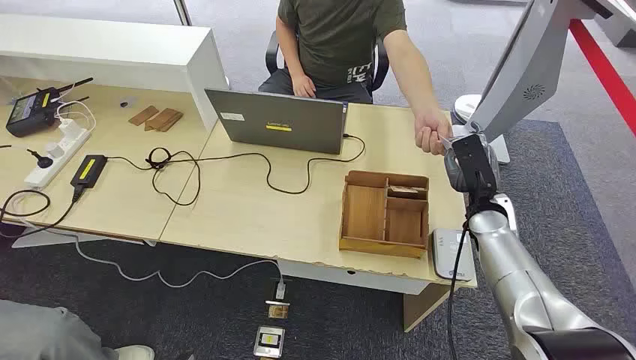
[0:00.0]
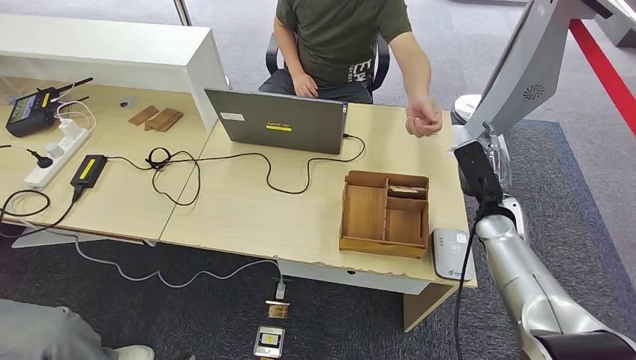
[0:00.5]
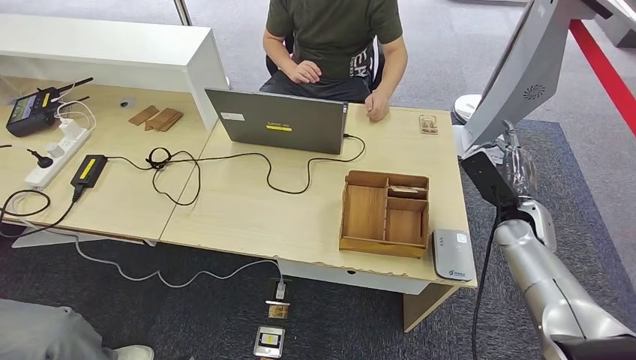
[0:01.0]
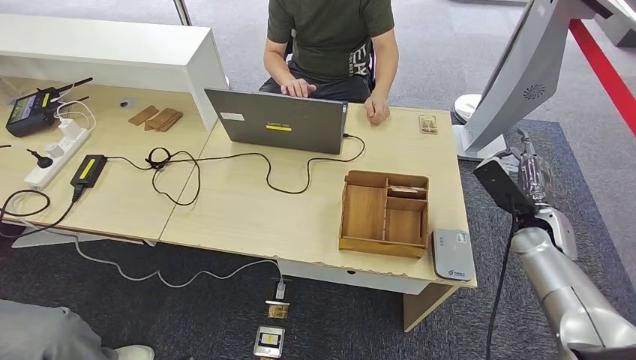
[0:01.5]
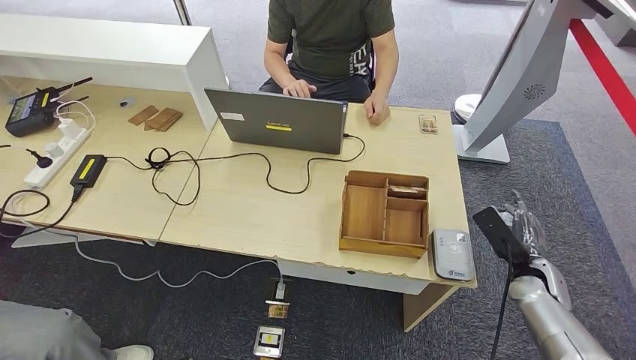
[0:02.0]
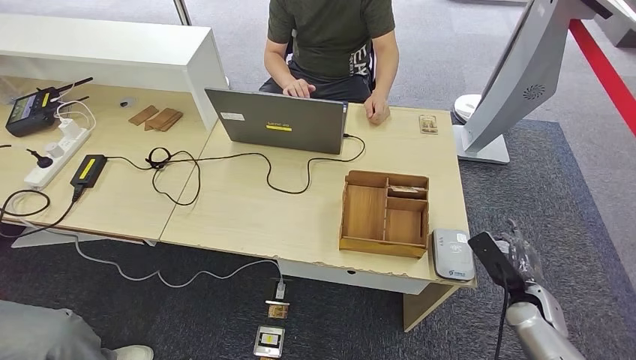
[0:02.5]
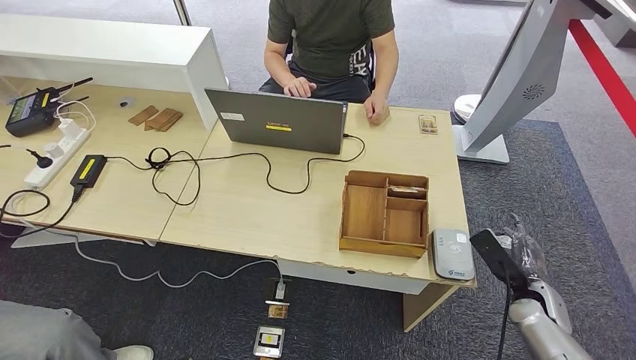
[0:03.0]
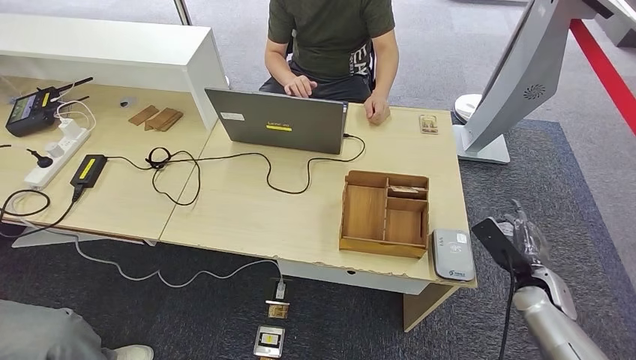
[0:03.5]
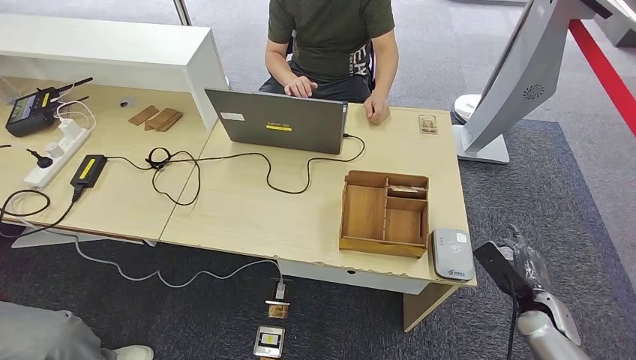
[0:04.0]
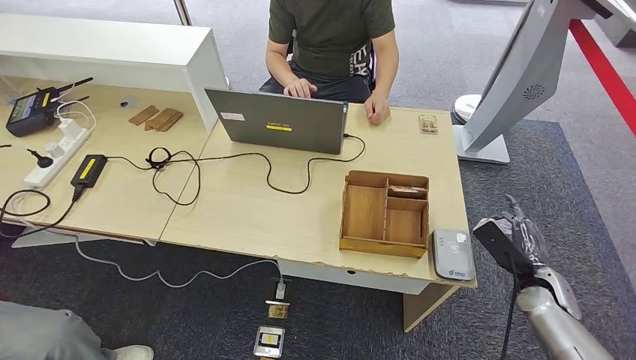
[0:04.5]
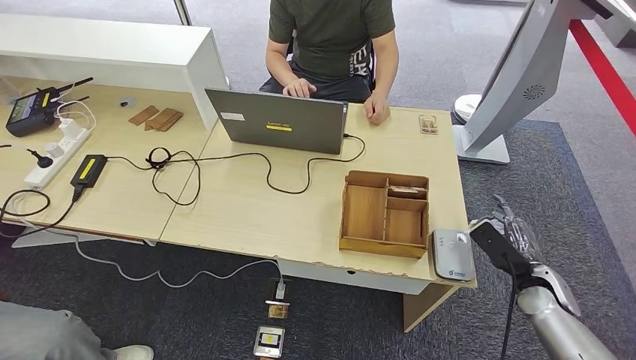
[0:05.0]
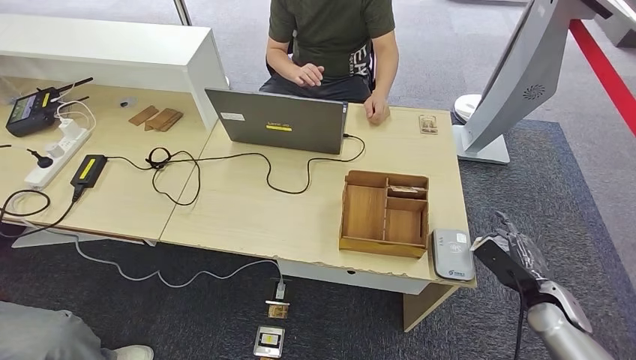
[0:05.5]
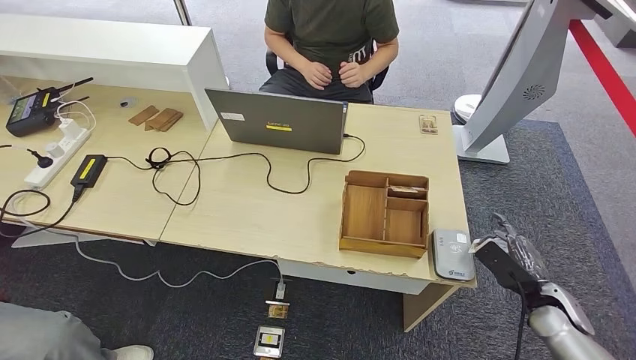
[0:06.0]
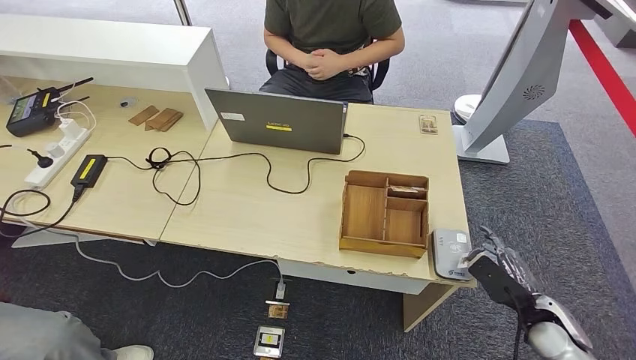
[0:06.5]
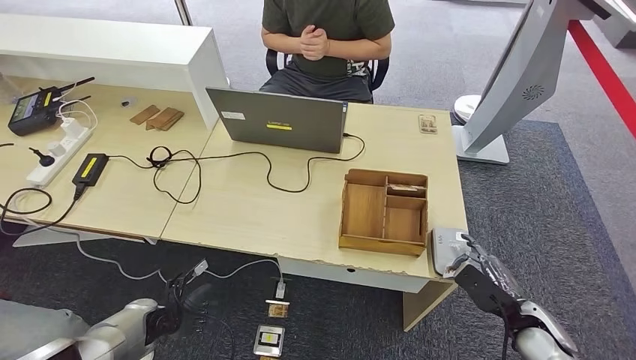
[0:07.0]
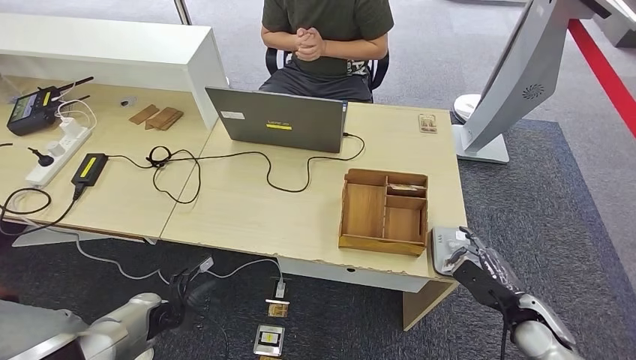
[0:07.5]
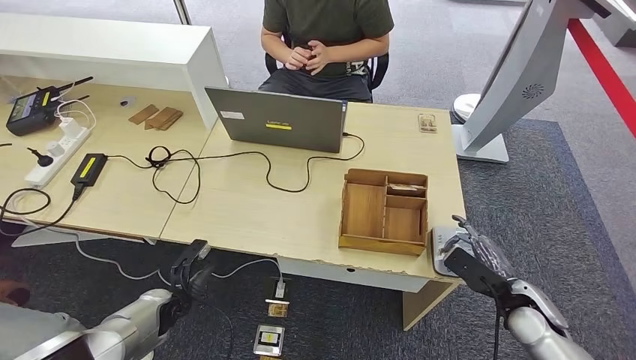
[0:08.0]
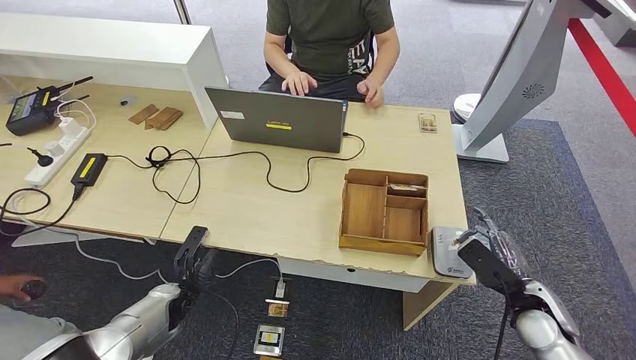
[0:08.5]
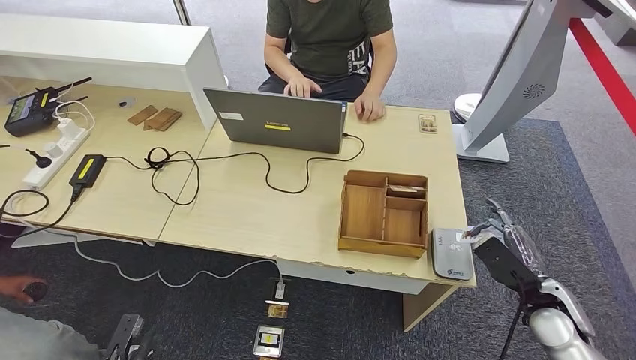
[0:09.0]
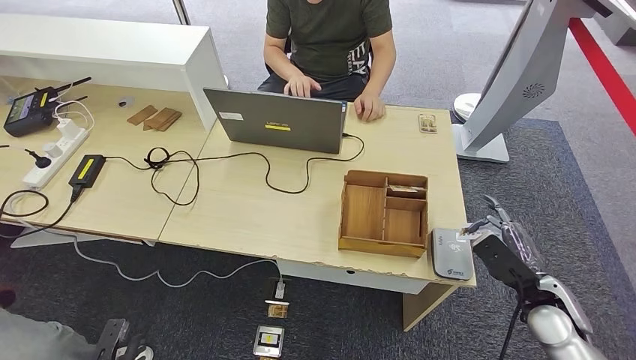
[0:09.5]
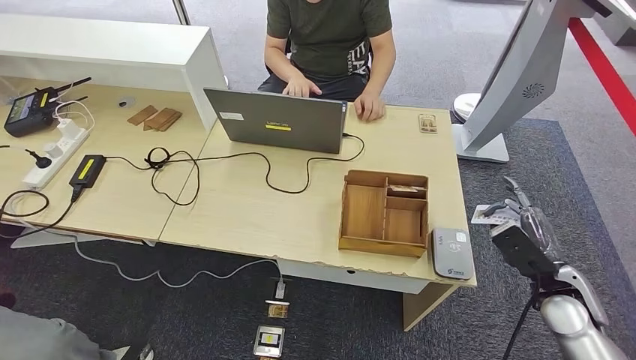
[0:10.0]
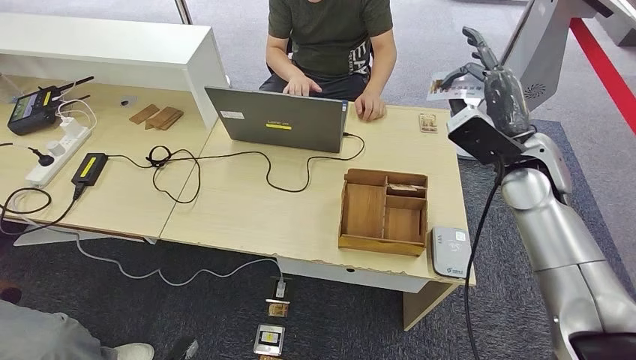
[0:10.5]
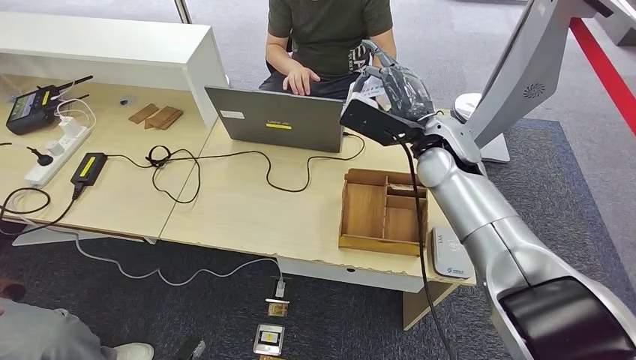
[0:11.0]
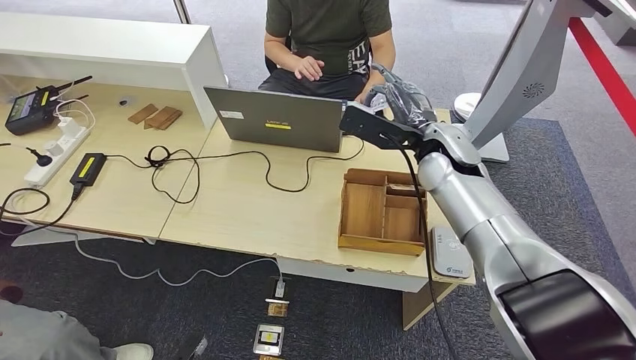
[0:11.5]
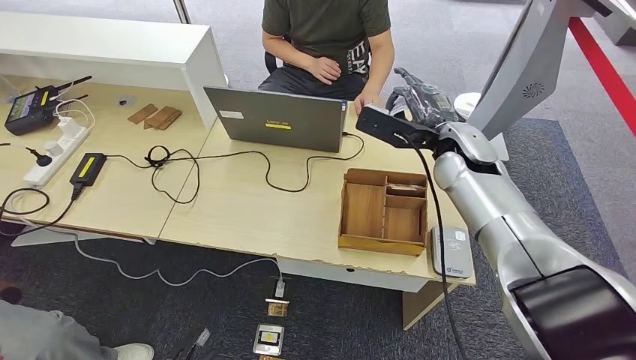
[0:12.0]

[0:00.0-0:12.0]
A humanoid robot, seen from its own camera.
Step, 0:00.0 to 0:01.0: Take the ID card from the person's hand.
Step, 0:01.5 to 0:10.0: Place the ID card on the card reader.
0:02.0 to 0:04.0: The right hand travels backward by some 5 cm.
0:06.0 to 0:08.0: The left hand moves forward and upward, roughly 20 cm; the right hand shifts approximately 5 cm to the left.
0:08.0 to 0:10.0: The left hand moves backward, some 20 cm. The right hand moves upward, approximately 5 cm.
0:10.0 to 0:12.0: The right hand goes approximately 30 cm to the left, forward and upward, while the left hand moves to the right, roughly 10 cm.

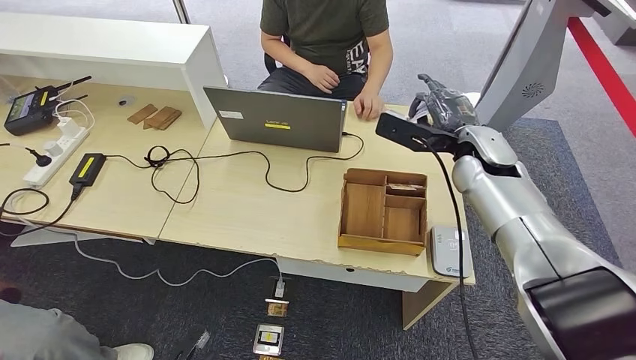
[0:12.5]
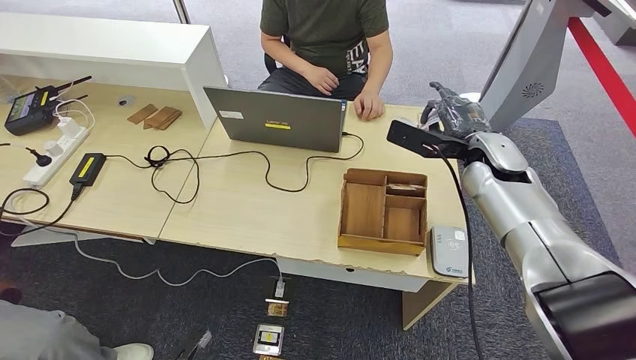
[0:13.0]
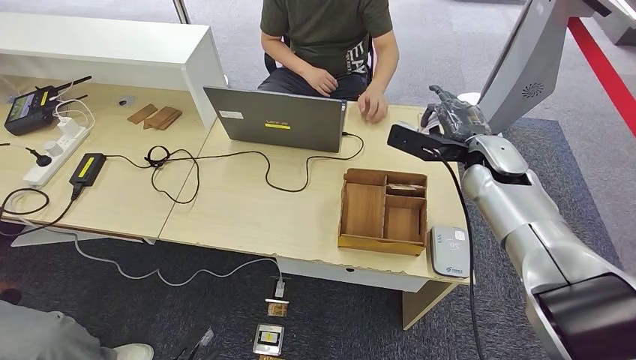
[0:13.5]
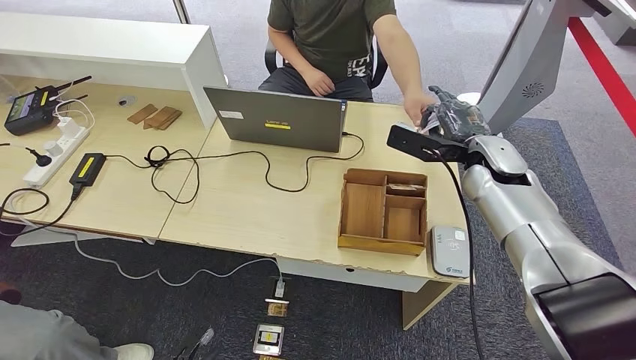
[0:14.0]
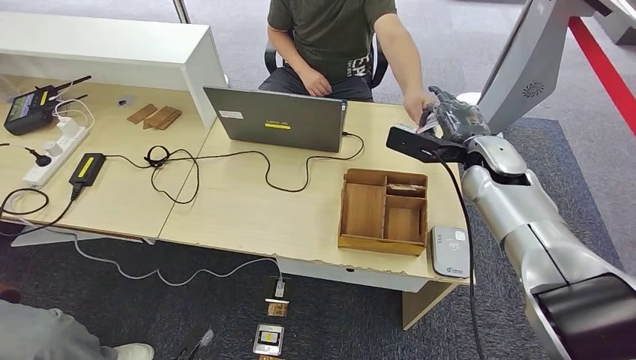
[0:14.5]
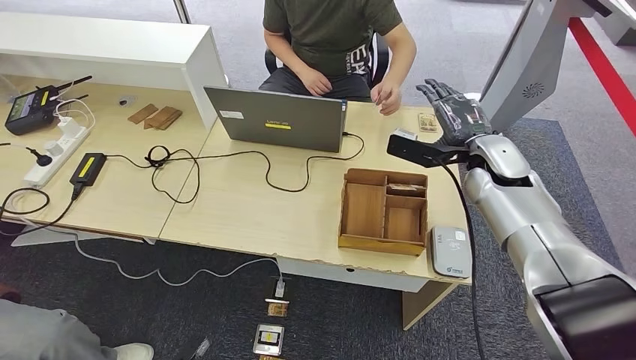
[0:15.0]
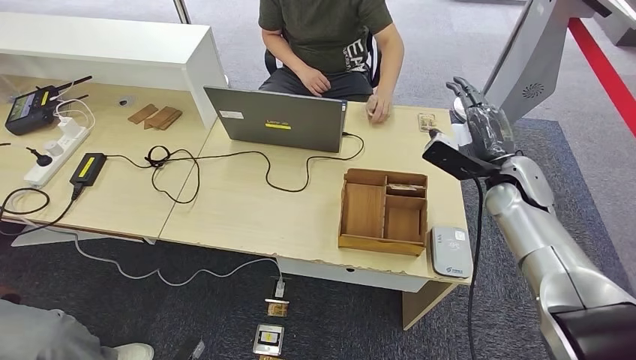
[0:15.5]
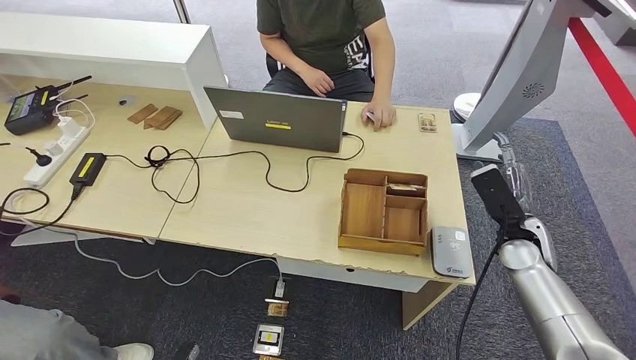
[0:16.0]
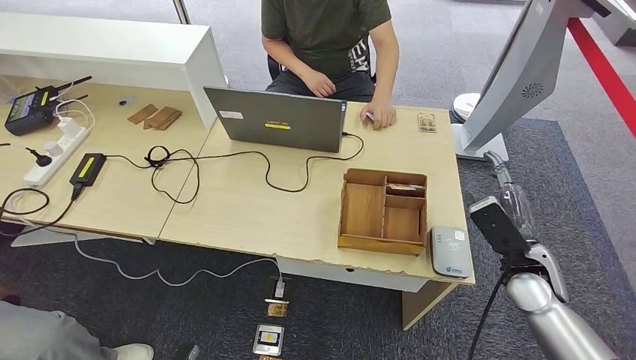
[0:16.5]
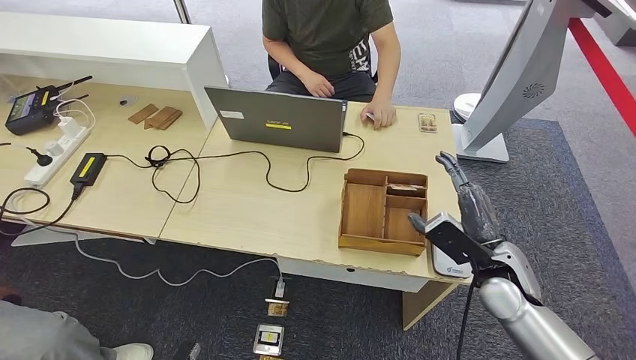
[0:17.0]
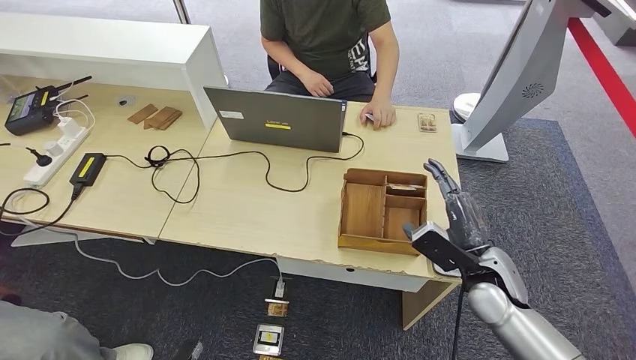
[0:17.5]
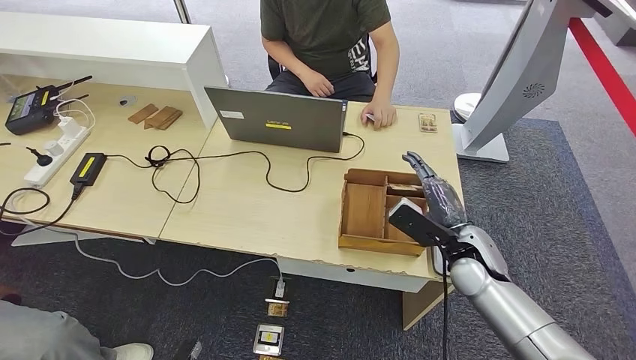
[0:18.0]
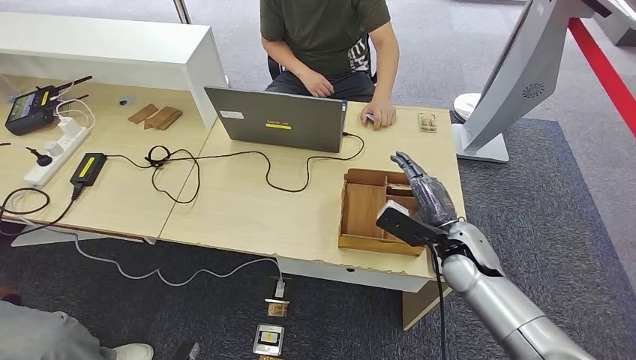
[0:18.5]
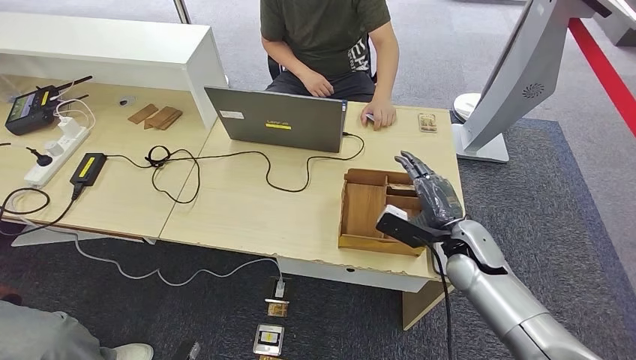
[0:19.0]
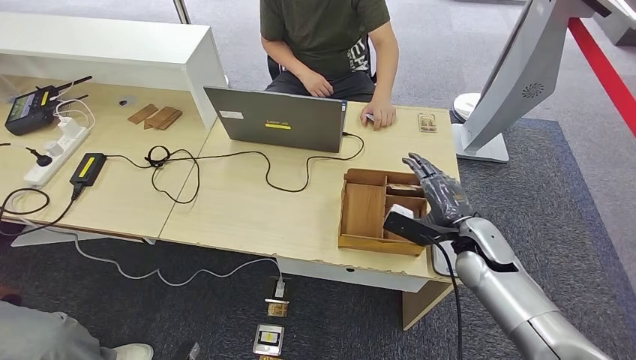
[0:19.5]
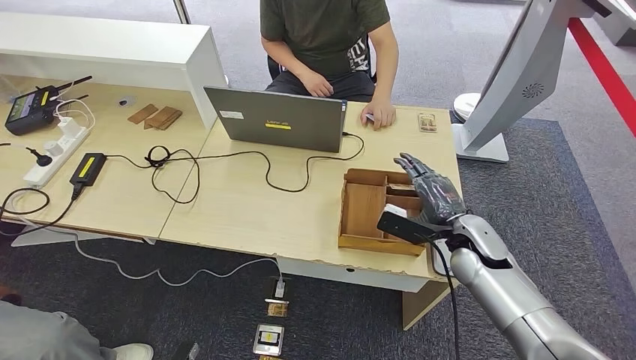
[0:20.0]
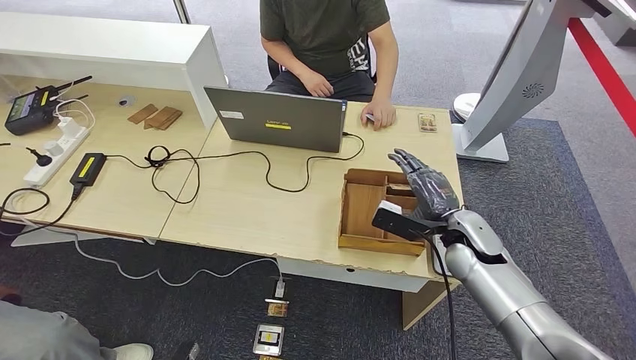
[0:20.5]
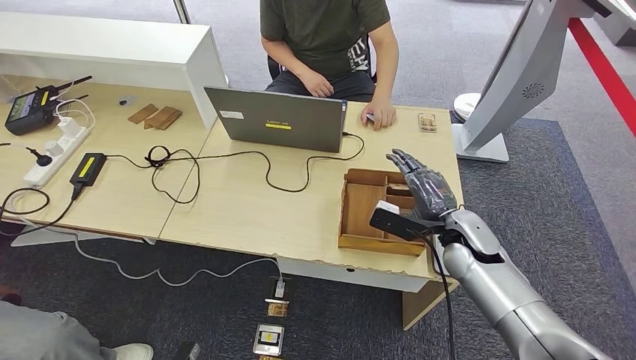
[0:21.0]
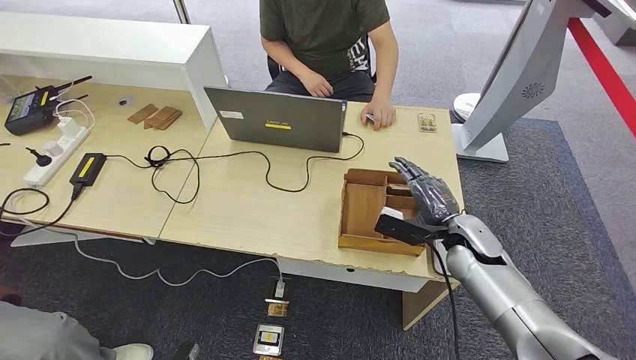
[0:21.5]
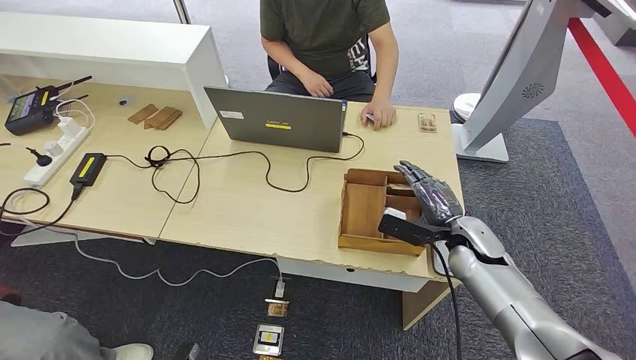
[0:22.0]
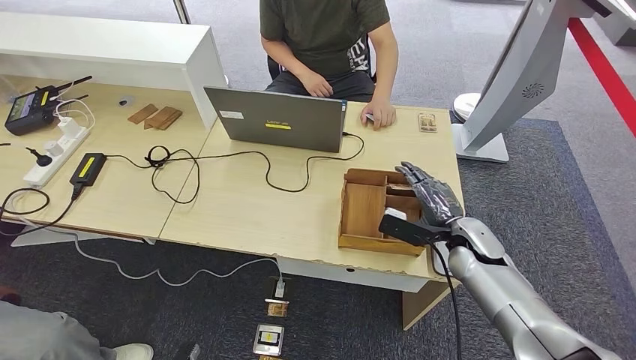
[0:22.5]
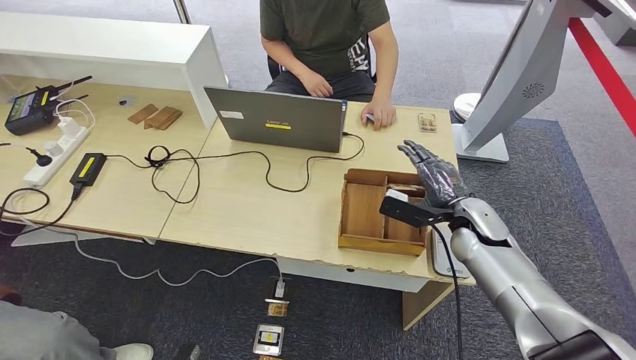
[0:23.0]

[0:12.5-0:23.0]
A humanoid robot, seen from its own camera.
Step, 0:12.5 to 0:15.5: Hand the ID card to the person.
0:12.5 to 0:14.5: The hands move only a little.
0:14.5 to 0:16.5: The right hand moves backward, downward and to the right, about 20 cm.
0:16.5 to 0:19.0: The right hand shifts some 10 cm to the left.
0:19.0 to 0:23.0: There are only small adjustments of the hands.
